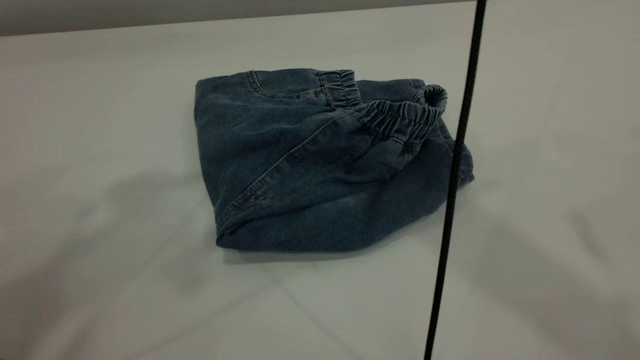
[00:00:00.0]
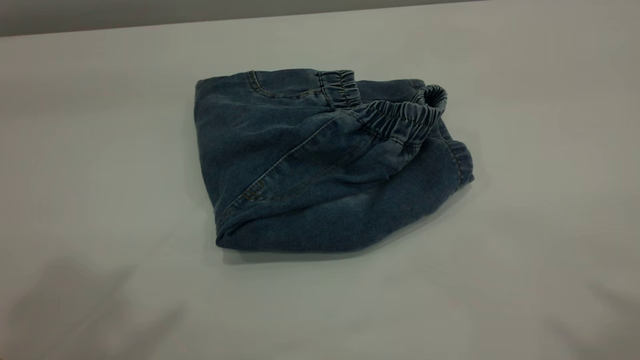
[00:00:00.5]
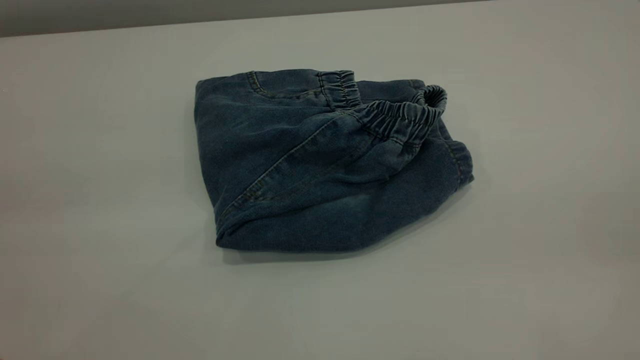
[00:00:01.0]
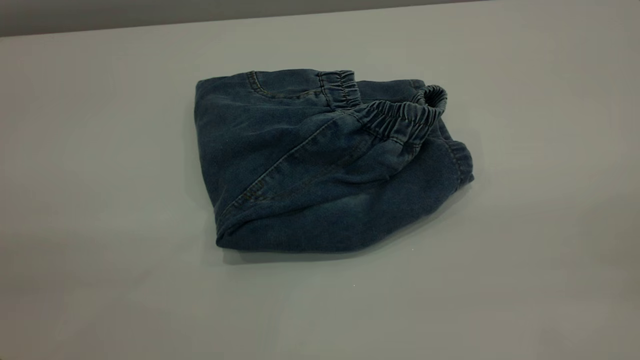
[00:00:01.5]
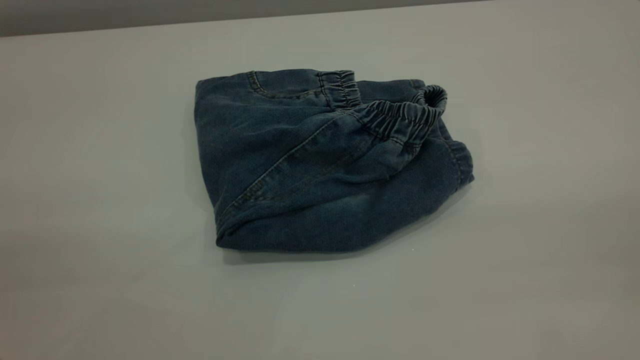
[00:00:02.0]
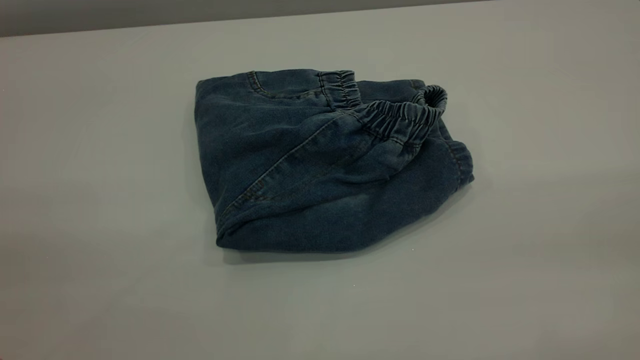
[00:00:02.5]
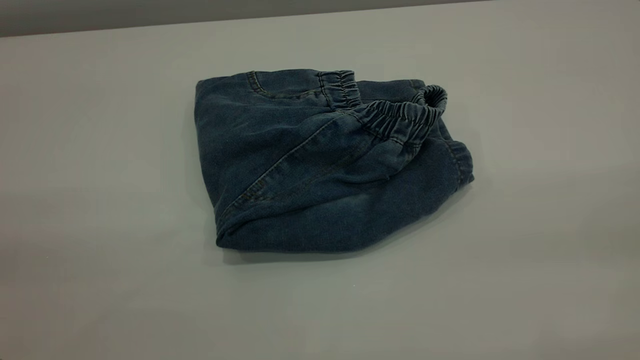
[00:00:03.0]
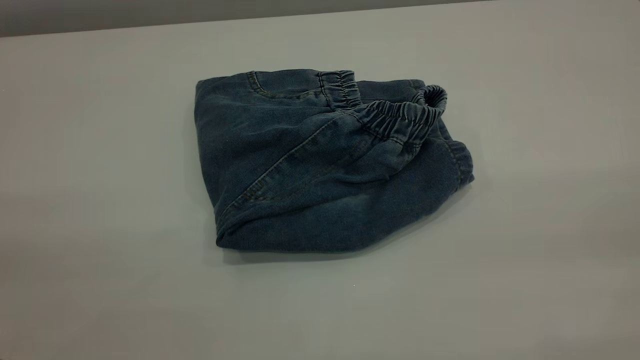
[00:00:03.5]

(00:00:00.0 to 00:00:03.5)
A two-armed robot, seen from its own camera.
00:00:00.0 - 00:00:02.0: The right gripper heads backward, to the right and downward, covering some 40 cm.
